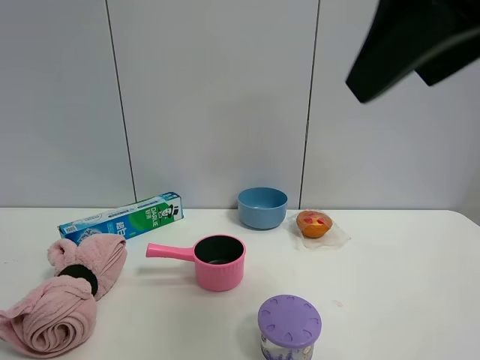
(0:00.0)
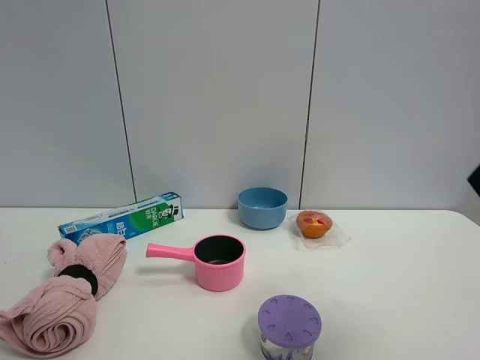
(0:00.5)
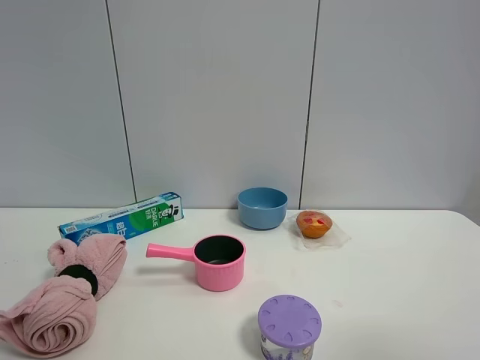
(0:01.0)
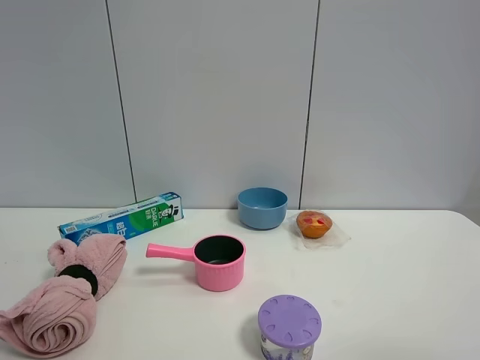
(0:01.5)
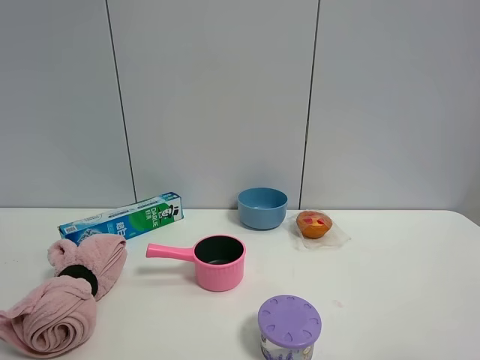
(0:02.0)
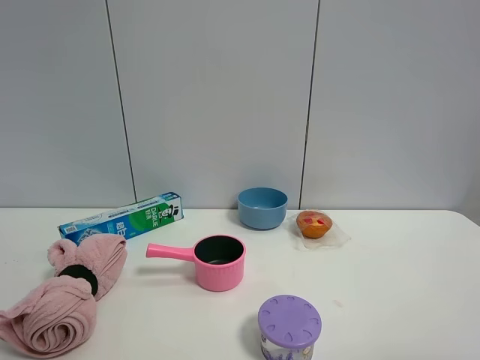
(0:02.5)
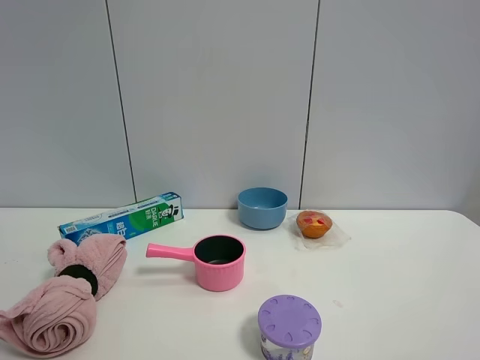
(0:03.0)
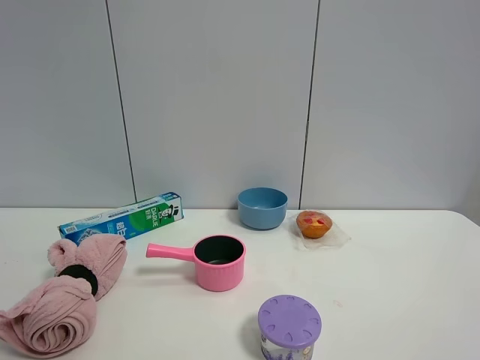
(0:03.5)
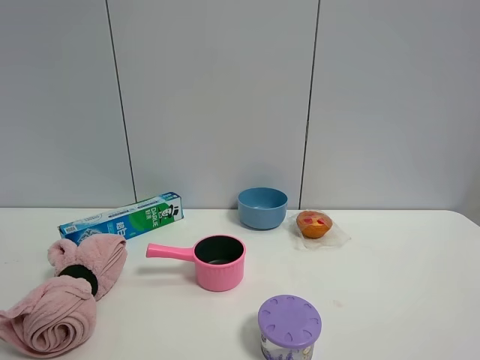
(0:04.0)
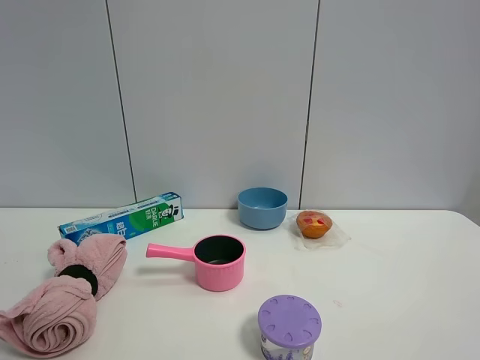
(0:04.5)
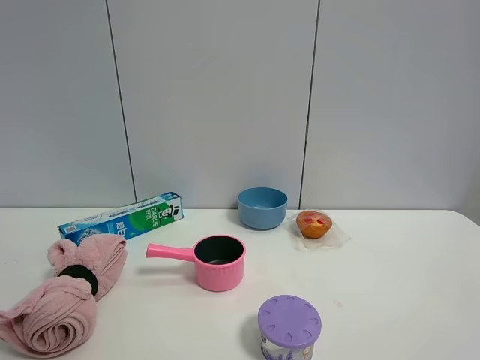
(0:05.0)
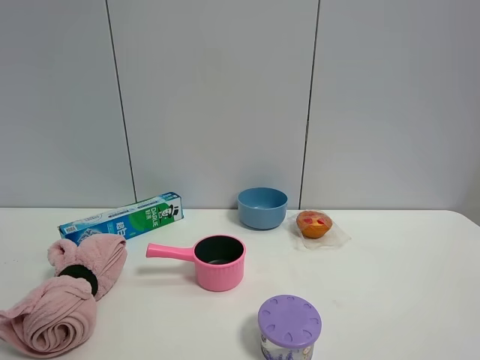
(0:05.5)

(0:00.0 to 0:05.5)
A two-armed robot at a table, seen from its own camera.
Task of the whole recording: the gripper move the object.
0:00.0 - 0:02.0: The right gripper goes roughly 20 cm to the right, downward and backward.

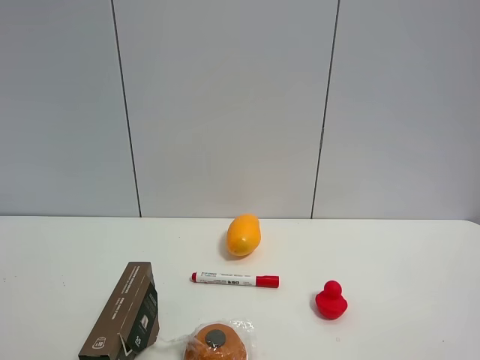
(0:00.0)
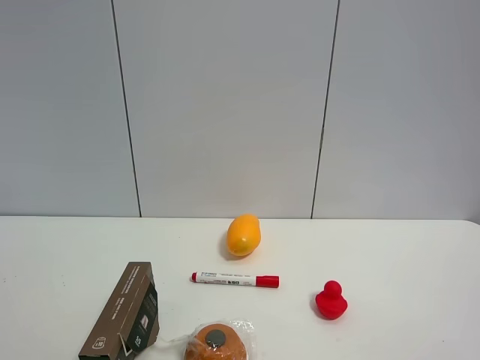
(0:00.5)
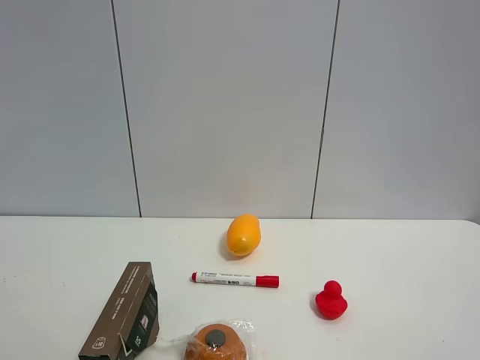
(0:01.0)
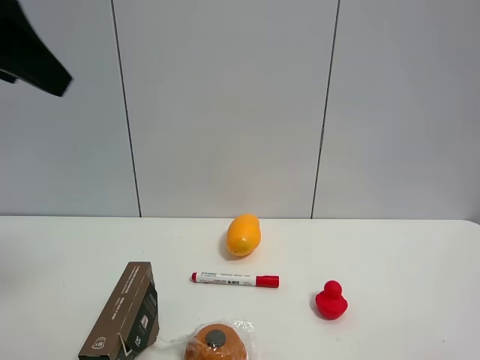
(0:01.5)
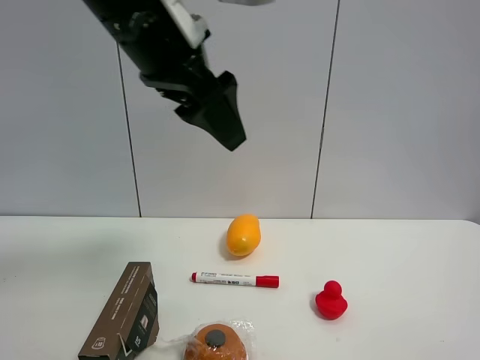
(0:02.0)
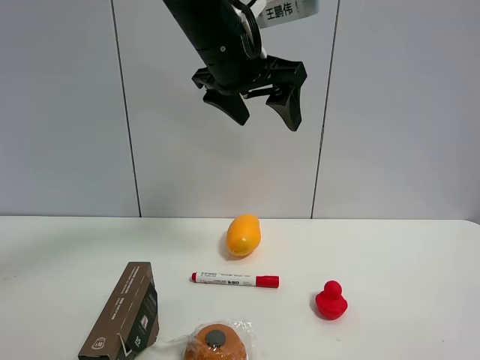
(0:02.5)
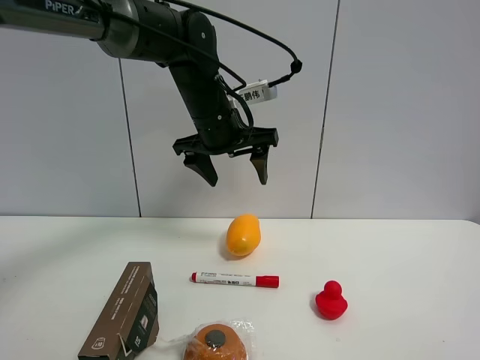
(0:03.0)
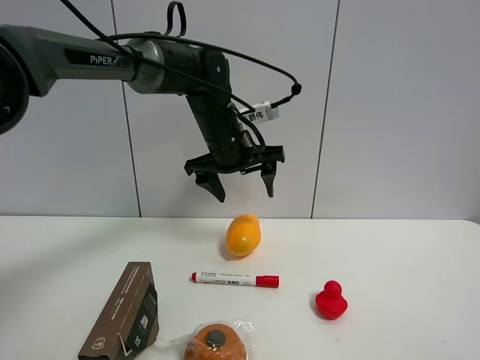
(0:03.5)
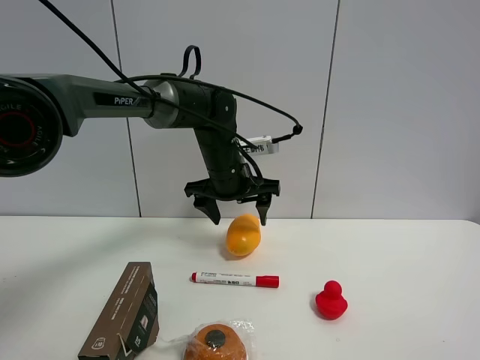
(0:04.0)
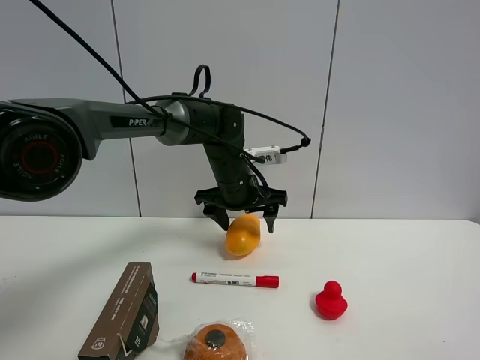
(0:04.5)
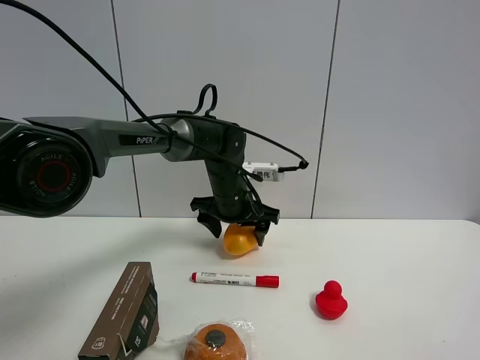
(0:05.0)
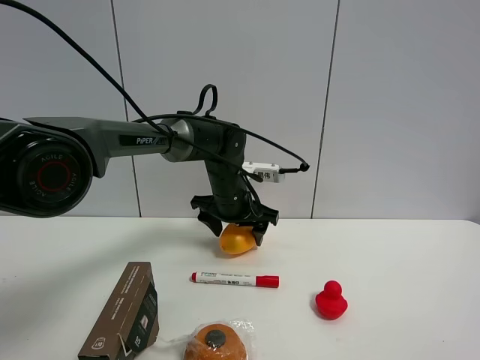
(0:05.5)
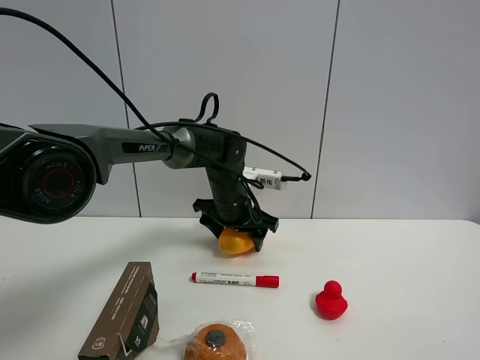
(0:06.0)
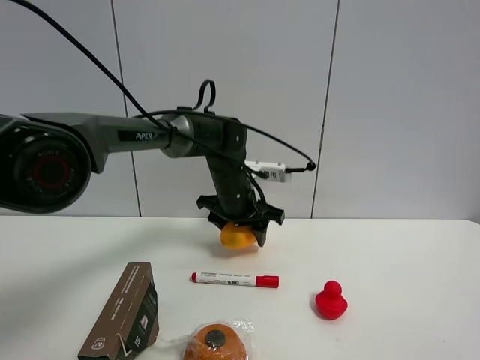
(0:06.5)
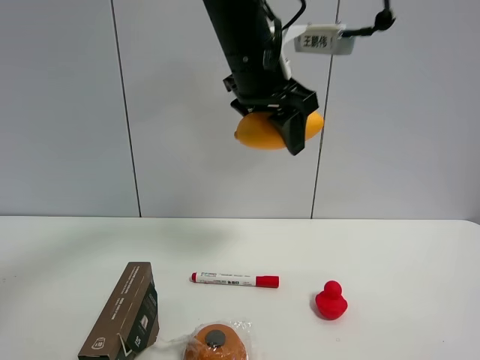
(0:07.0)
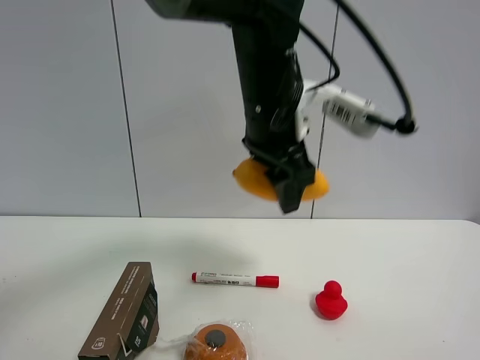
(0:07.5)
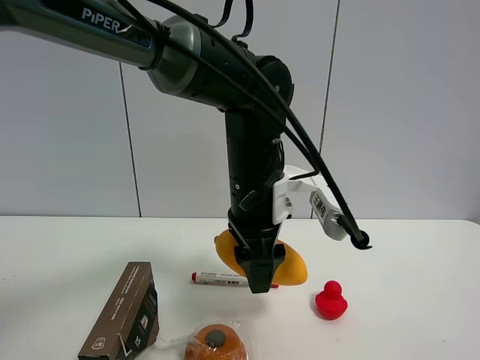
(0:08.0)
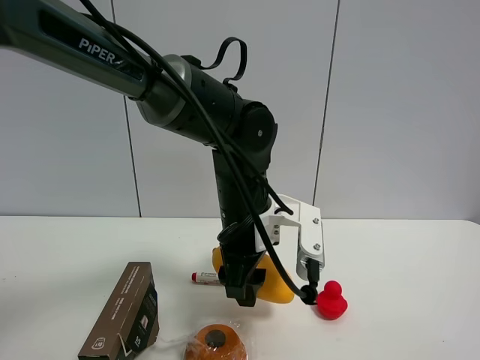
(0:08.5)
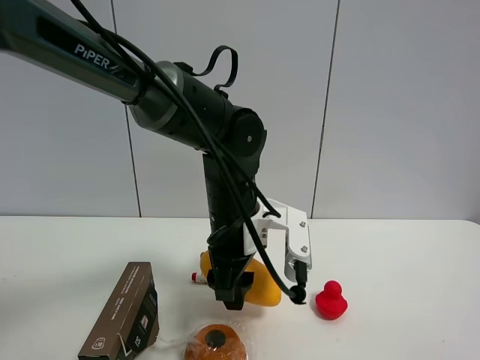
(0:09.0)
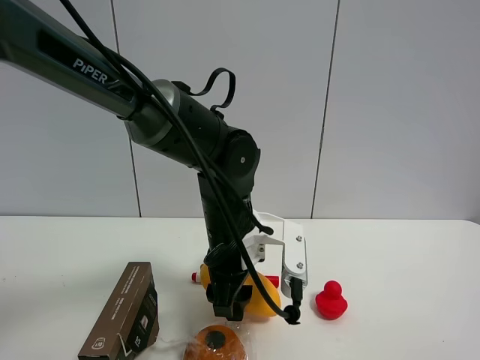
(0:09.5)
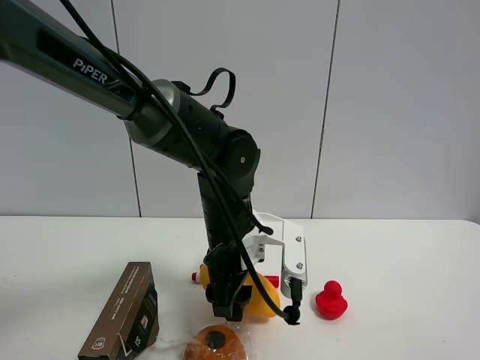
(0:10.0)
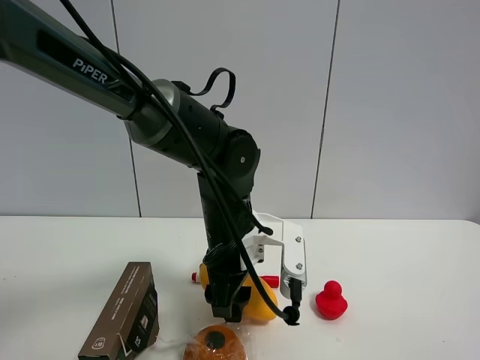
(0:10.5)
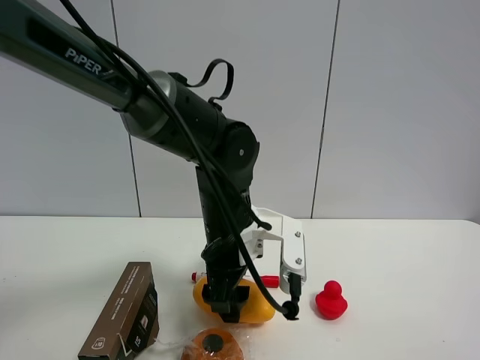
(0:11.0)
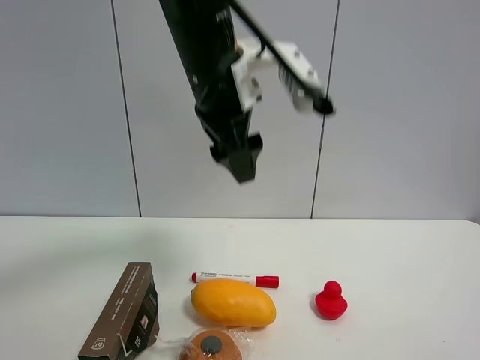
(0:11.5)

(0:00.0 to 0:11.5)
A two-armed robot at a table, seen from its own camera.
Task of the whole recording: the gripper move the object.
Step, 0:00.0 - 0:06.0: Grasp the mango with the left gripper.
Step, 0:06.5 - 0:10.5: Place the mango on the table with the left gripper.
0:00.0 - 0:02.0: The left gripper moves forward and to the right, some 40 cm.
0:02.0 - 0:04.0: The left gripper moves downward and forward, roughly 25 cm.
0:04.0 - 0:06.0: The left gripper moves downward, about 5 cm.
0:06.0 - 0:07.5: The left gripper moves upward and backward, approximately 20 cm, and closes.
0:07.5 - 0:09.5: The left gripper moves downward, roughly 15 cm.
0:09.5 - 0:11.5: The left gripper travels upward by approximately 20 cm, and opens.

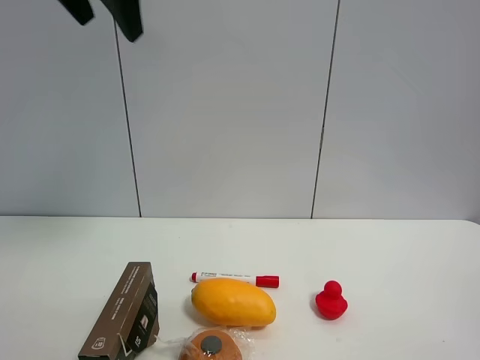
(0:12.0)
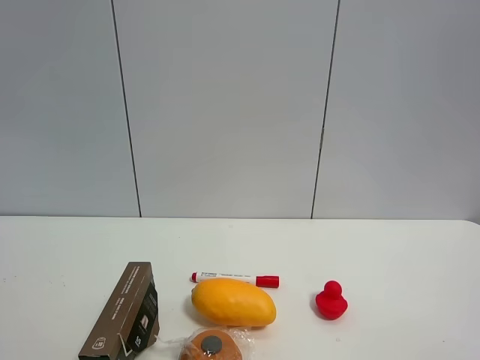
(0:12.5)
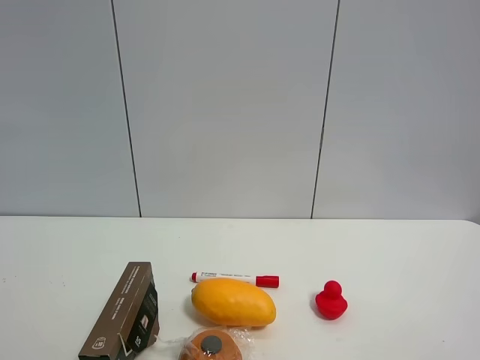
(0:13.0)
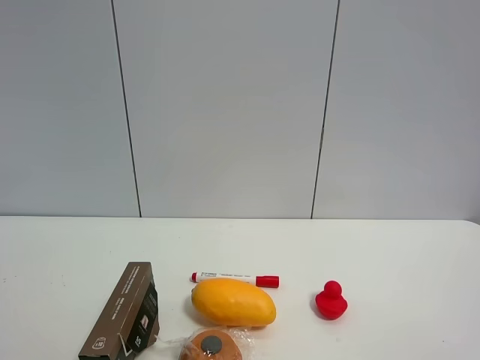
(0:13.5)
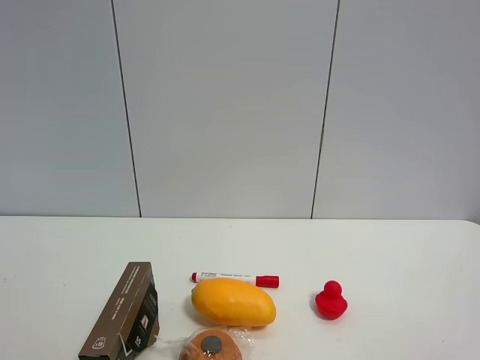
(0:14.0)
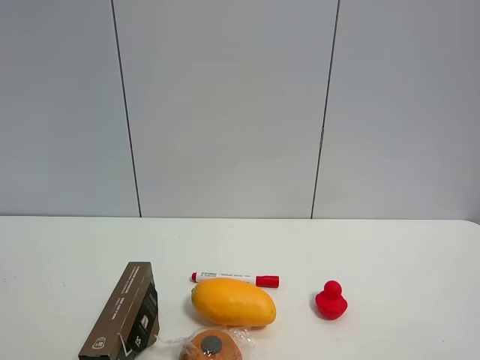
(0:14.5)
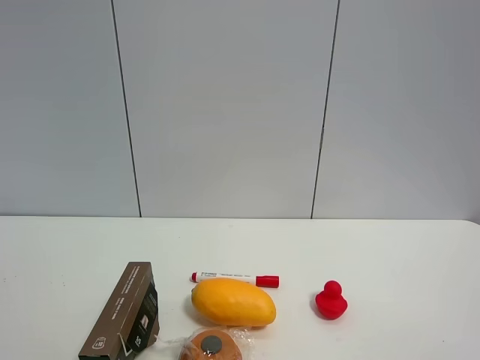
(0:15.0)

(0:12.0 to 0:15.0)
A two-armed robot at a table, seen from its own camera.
Task of the whole recording: the gripper move the object.
0:12.0 - 0:13.5: The left gripper travels backward and downward by some 35 cm, and opens its fingers.

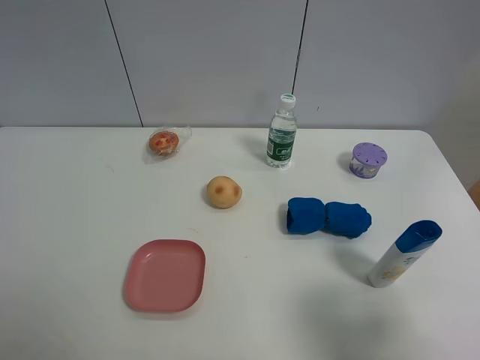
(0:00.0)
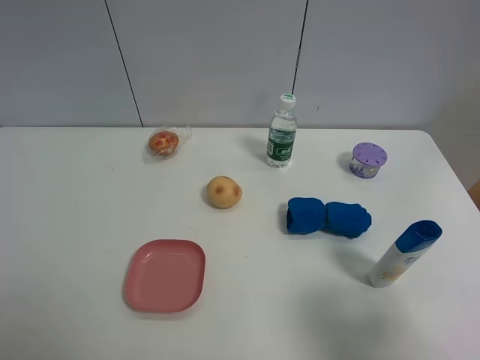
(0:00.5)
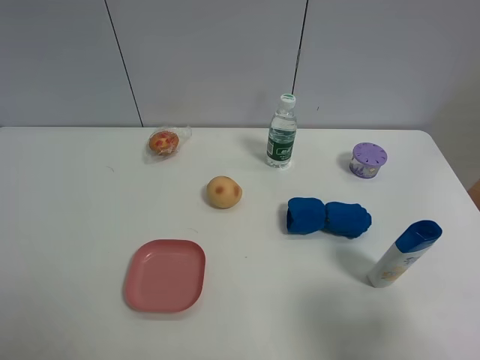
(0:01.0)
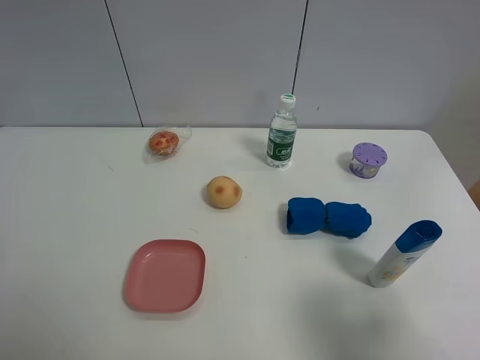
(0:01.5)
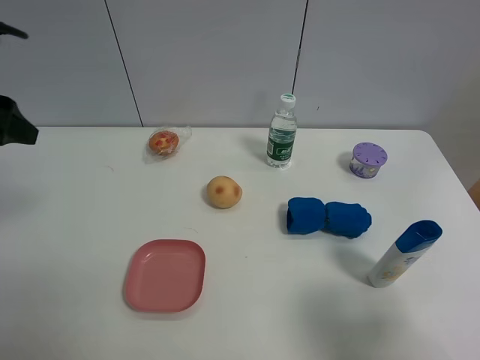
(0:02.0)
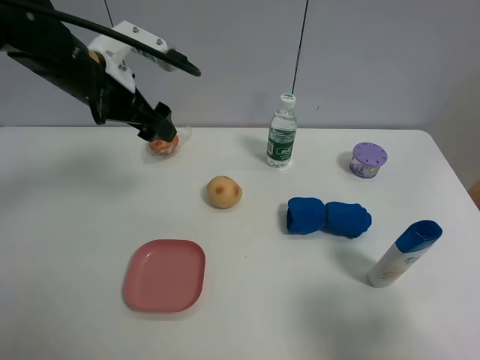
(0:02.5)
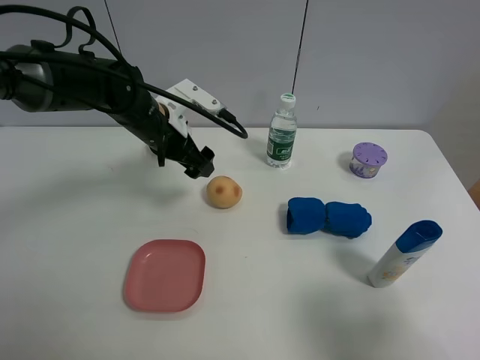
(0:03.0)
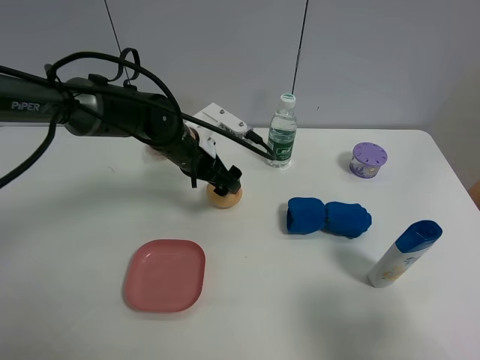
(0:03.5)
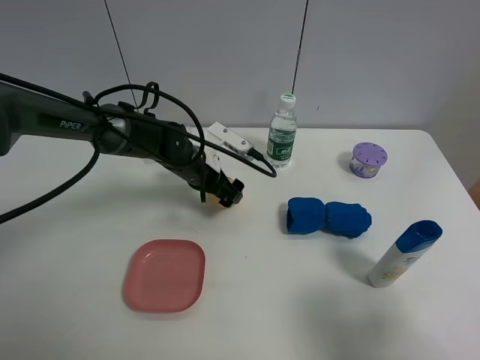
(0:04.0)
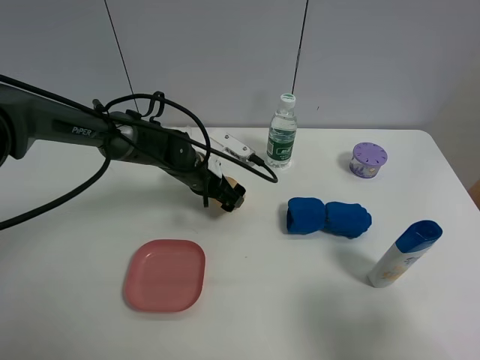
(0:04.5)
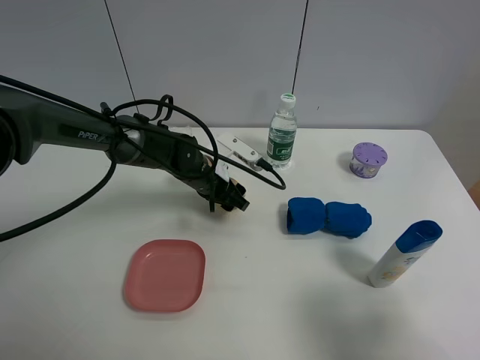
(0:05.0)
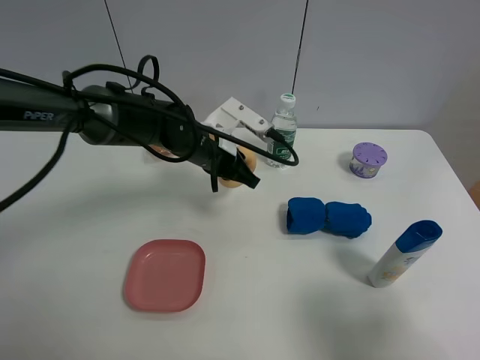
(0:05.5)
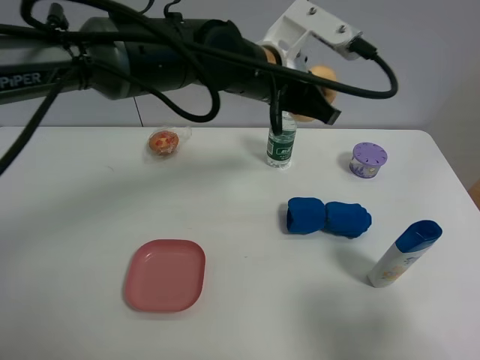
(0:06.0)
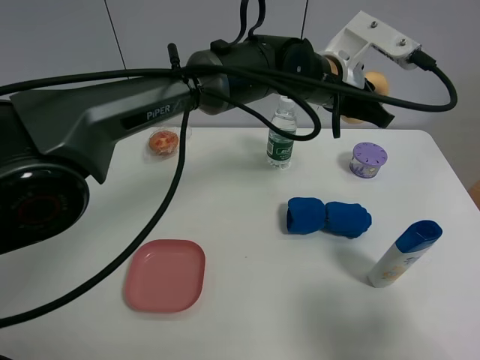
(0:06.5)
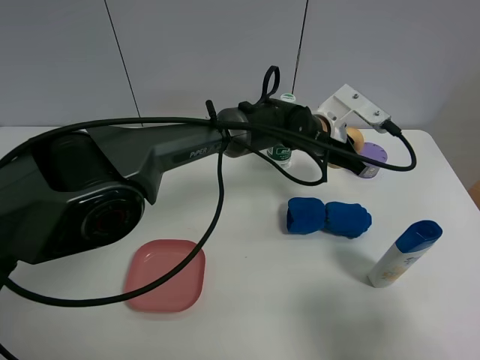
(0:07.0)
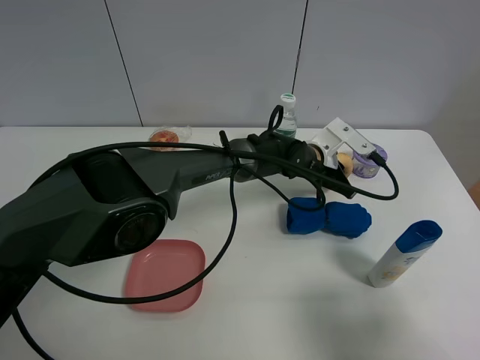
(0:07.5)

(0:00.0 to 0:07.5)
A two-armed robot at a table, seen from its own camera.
Task of the whole recording: the gripper move the object.
Step, 0:00.0 - 0:05.0: Grasp the egg yolk pastry with the left gripper.
0:00.0 - 0:02.0: The left gripper is displaced forward by roughly 25 cm.
0:02.0 - 0:04.0: The left gripper heads to the right, downward and forward, covering some 35 cm.
0:04.0 - 0:05.5: The left gripper is displaced upward by roughly 5 cm, and closes.
0:05.5 - 0:07.5: The left gripper is displaced to the right and downward by about 20 cm.
